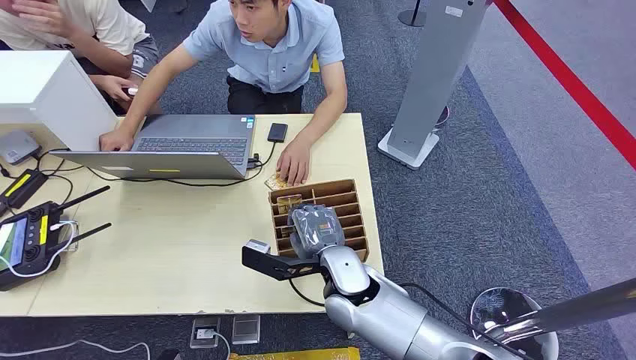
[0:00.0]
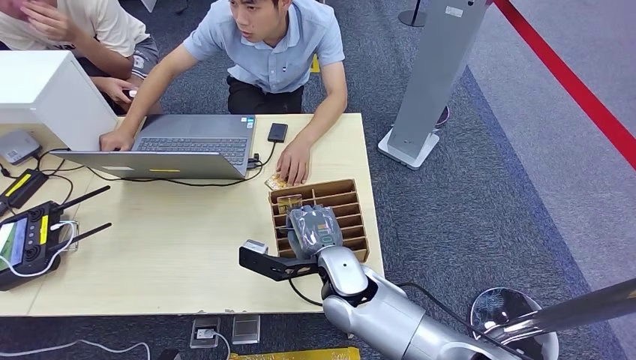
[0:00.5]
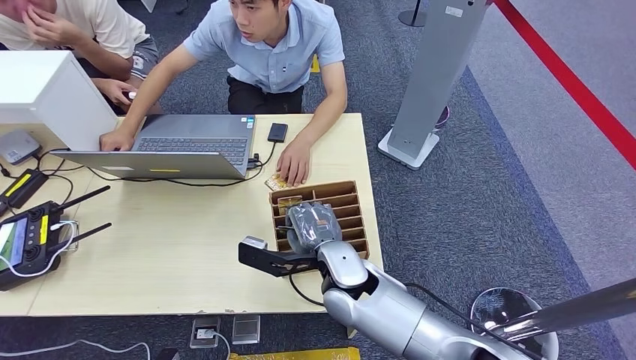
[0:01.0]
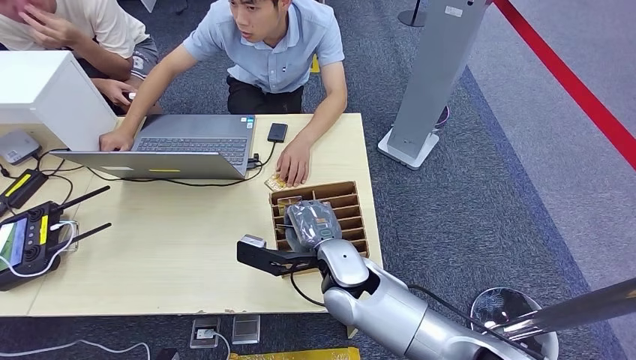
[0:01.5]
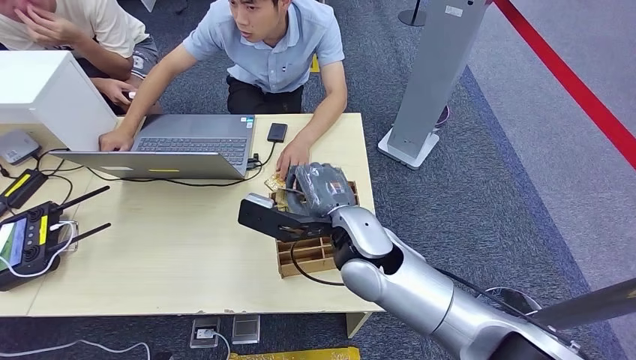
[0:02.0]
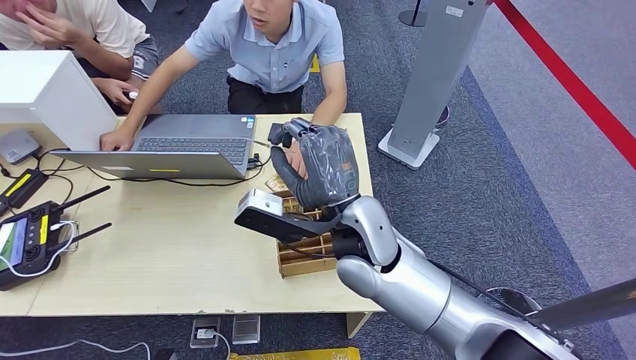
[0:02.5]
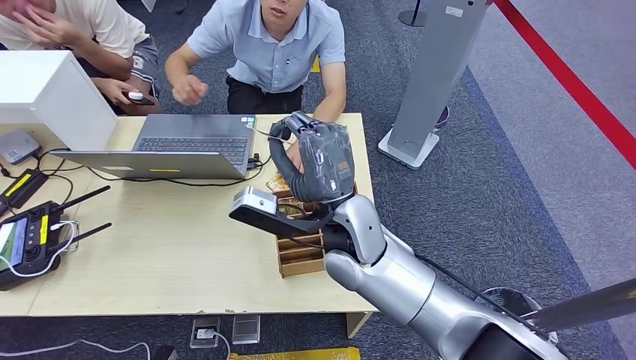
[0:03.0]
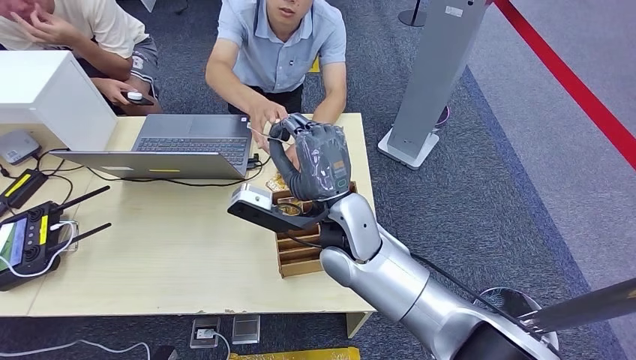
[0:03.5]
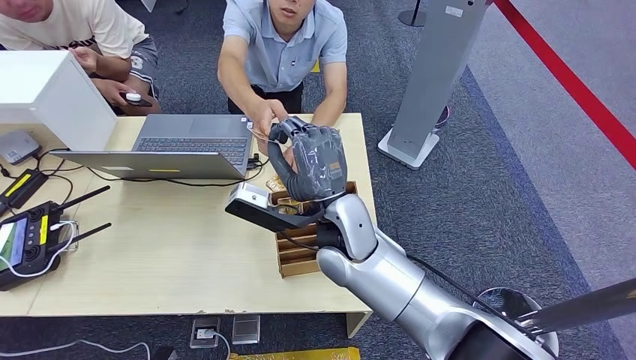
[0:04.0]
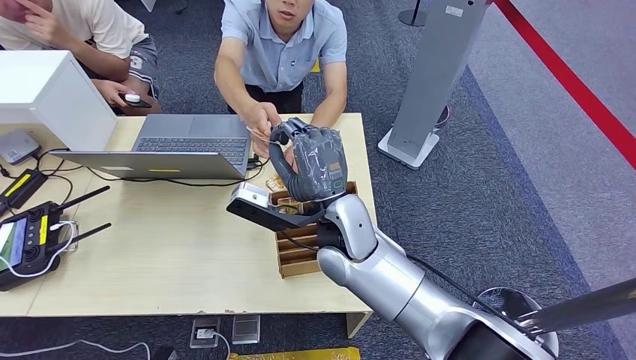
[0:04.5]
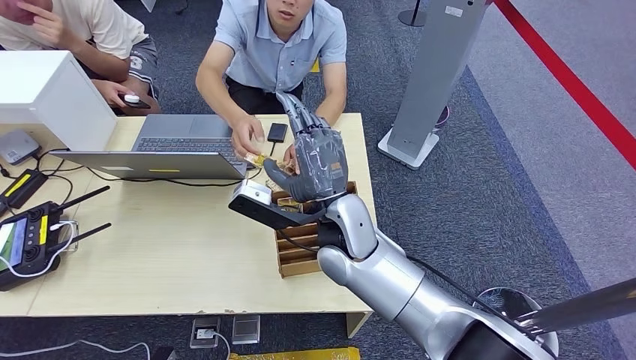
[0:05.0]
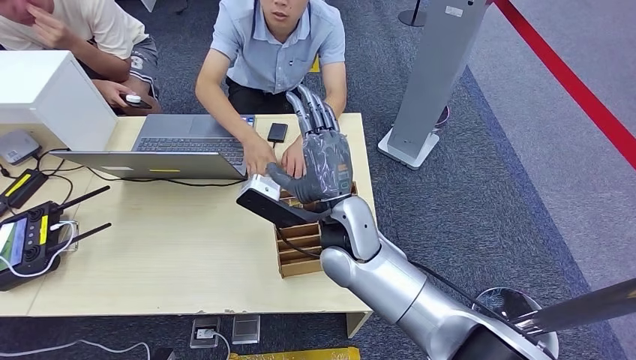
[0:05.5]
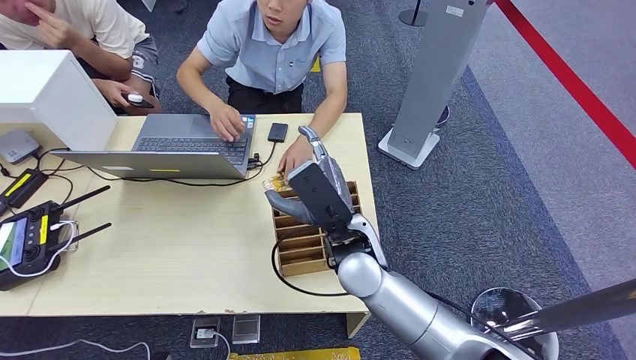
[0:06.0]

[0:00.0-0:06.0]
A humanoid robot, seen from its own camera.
Step, 0:00.0 to 0:02.0: Pick up the room card from the card holder.
Step, 0:02.5 to 0:06.0: Hand the room card to the target.
